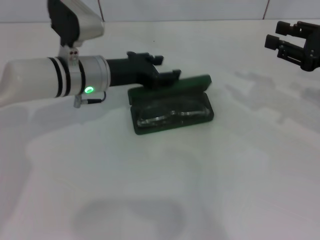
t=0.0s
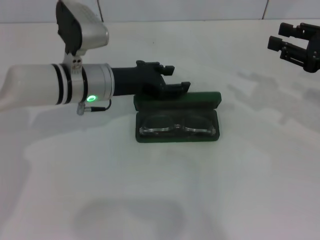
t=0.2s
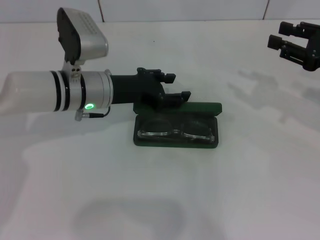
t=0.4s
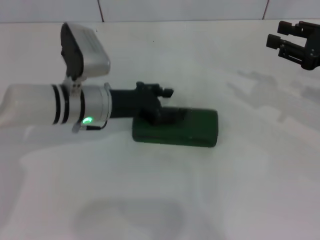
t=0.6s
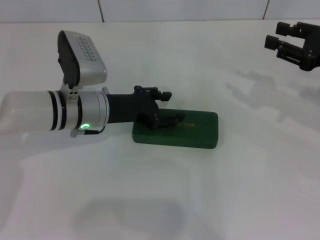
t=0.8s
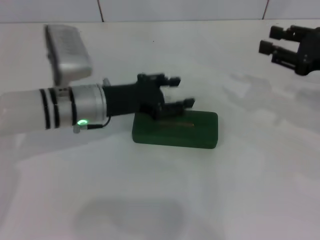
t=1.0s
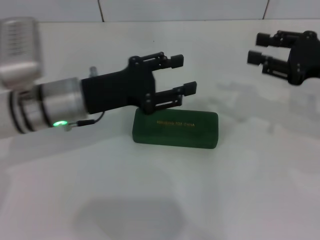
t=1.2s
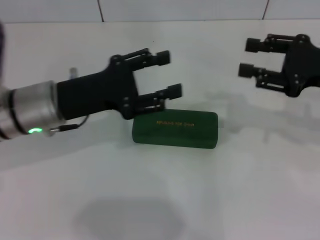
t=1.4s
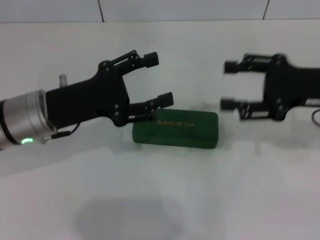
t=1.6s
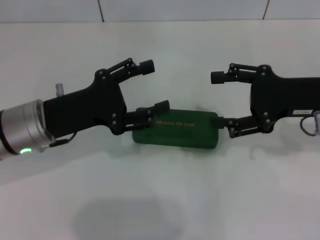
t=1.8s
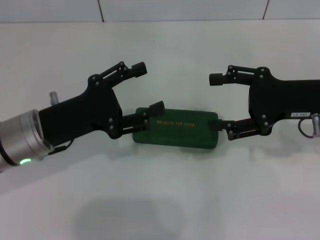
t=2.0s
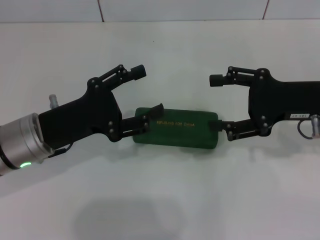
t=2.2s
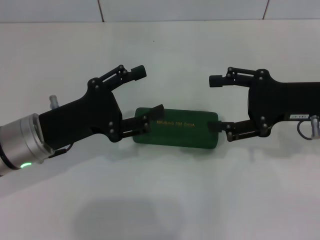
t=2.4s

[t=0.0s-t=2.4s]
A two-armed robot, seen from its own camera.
t=0.0s to t=1.2s: The left gripper heads backward, covering about 5 cm.
t=1.2s to t=2.4s: The left gripper shifts about 5 cm backward, while the right gripper heads to the left, covering approximately 5 cm, and opens.

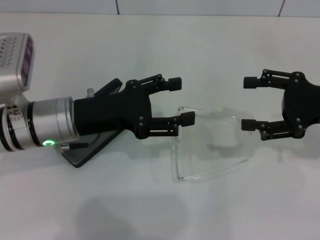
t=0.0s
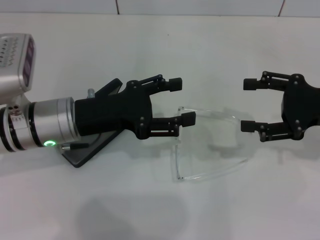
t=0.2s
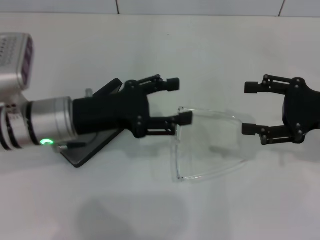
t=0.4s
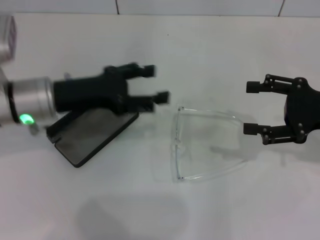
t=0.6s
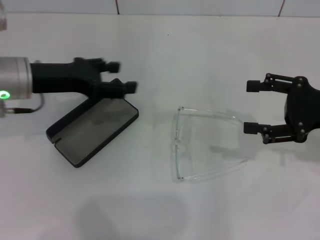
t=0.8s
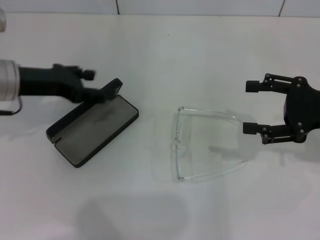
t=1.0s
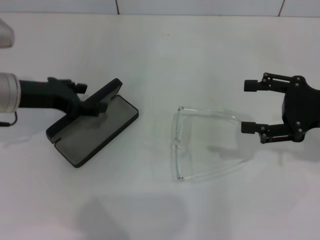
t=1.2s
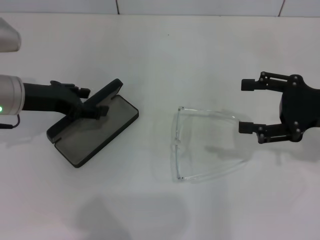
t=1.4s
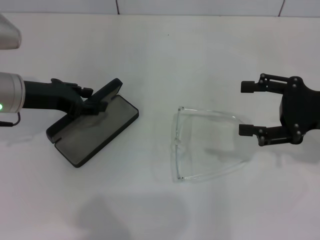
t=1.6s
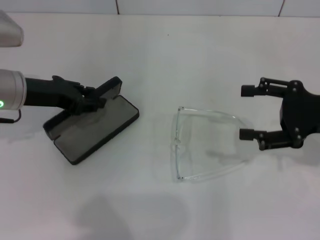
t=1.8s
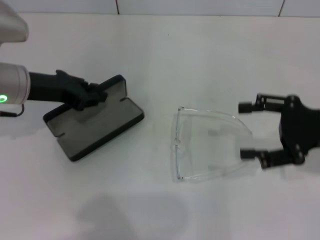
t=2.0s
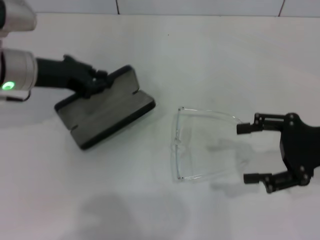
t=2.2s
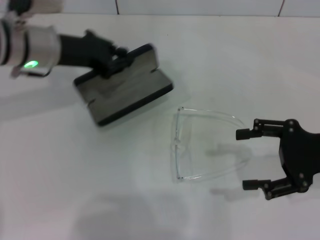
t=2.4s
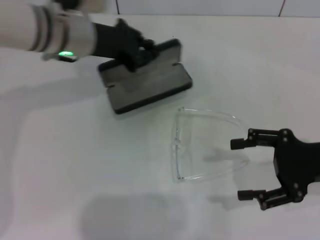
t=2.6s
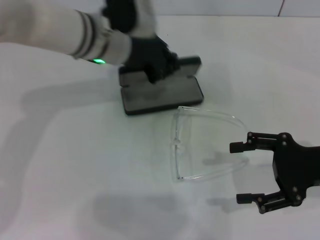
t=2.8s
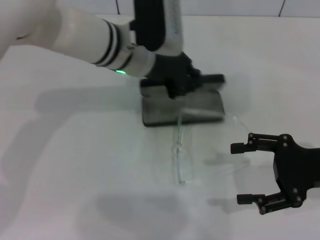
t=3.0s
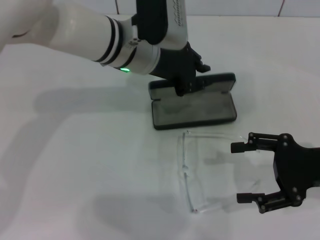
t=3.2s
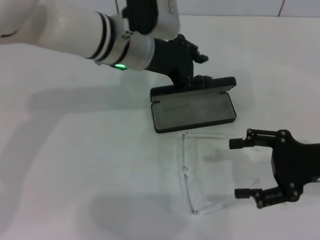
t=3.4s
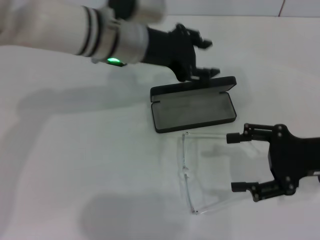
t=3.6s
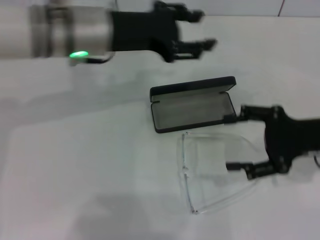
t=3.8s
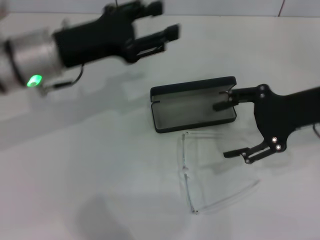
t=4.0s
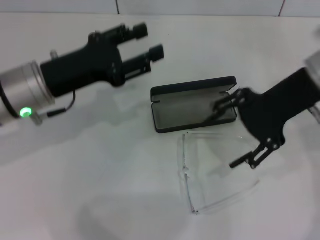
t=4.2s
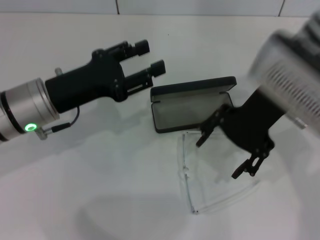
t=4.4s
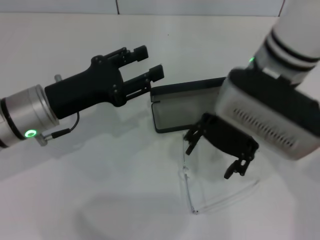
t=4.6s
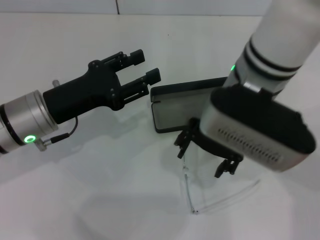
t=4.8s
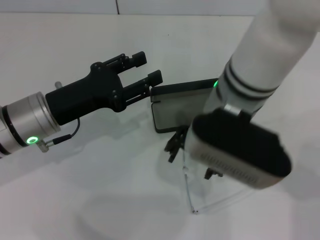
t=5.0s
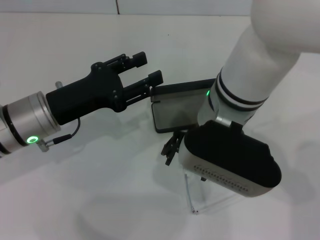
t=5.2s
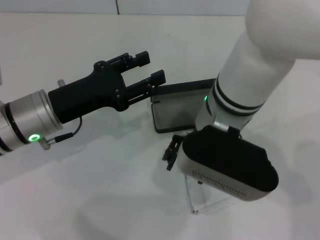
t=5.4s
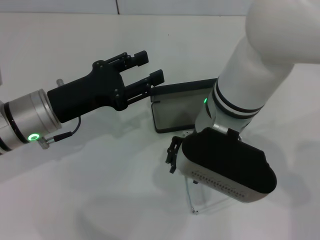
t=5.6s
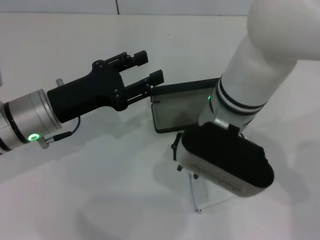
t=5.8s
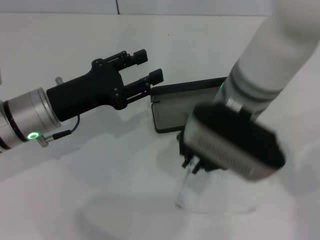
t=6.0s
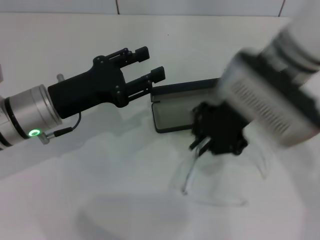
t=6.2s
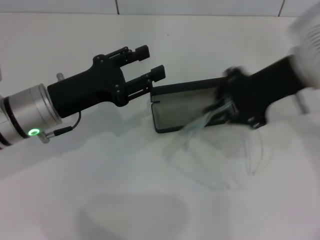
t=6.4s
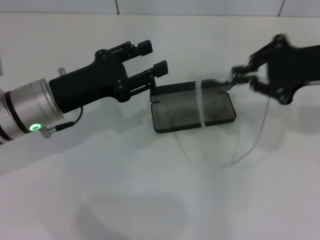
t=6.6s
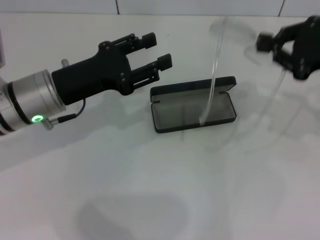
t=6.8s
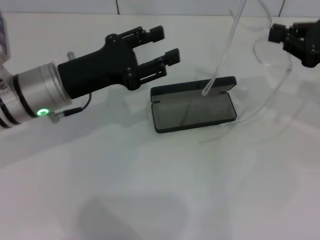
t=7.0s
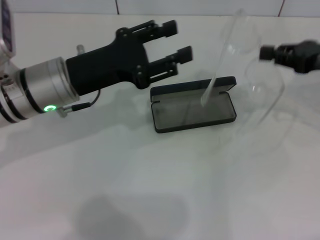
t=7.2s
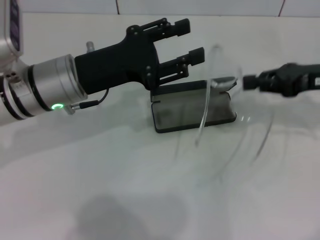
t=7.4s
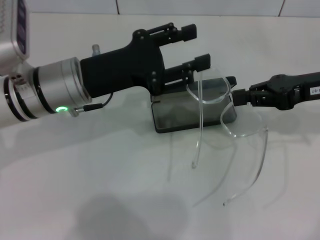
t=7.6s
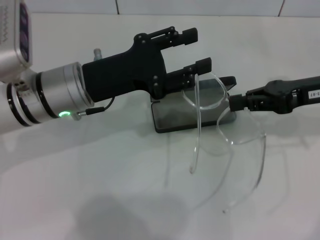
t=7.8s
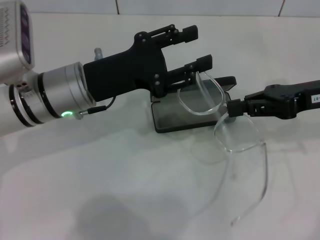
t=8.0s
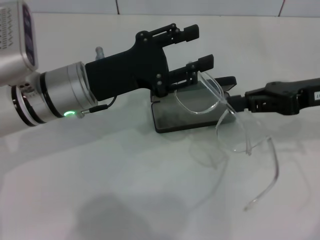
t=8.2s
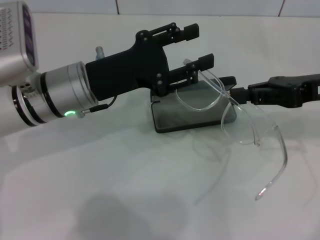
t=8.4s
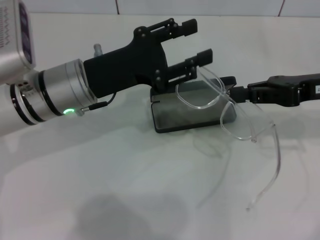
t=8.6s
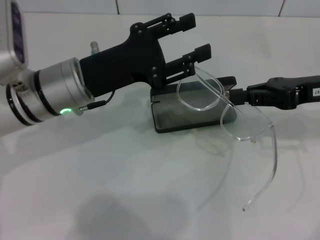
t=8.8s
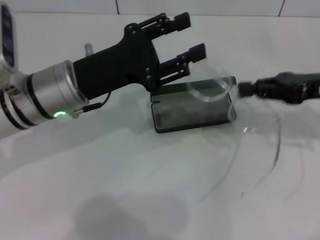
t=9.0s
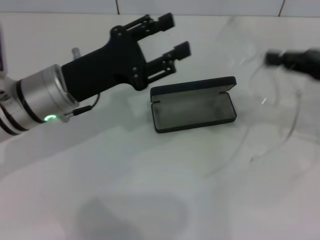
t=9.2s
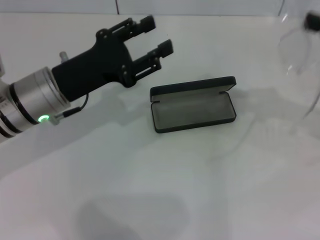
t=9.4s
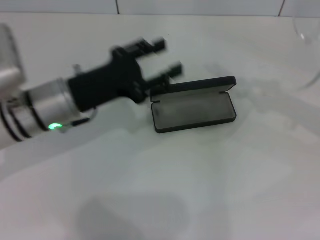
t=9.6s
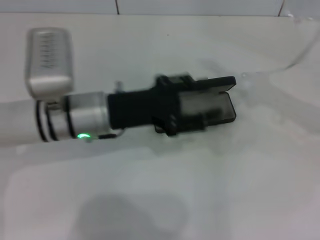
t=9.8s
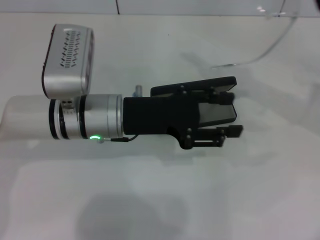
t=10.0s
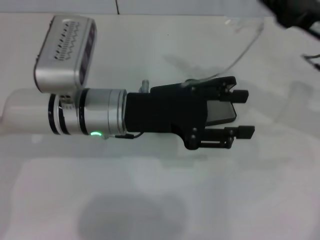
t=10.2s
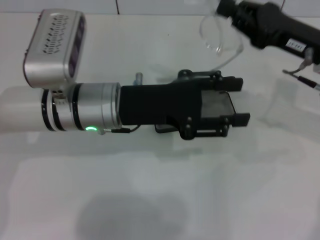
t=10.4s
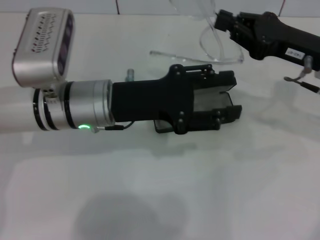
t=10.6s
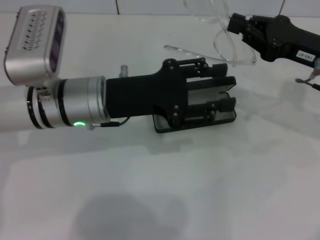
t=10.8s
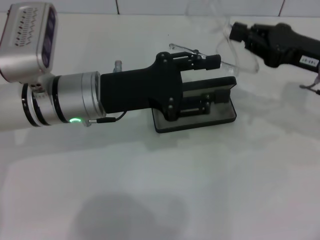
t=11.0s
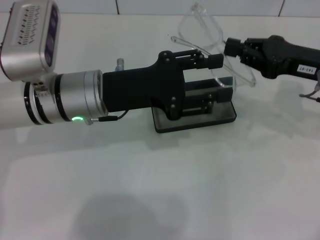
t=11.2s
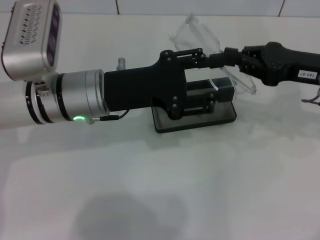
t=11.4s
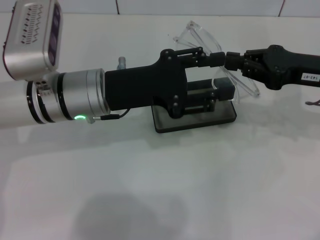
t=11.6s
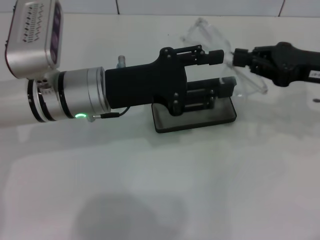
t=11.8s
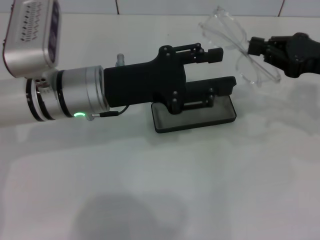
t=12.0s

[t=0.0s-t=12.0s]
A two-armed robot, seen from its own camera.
Step, t=0.0s to t=1.6s: Grab the glasses case with your left hand.
Step, t=1.8s to t=3.2s: Place the glasses case in the center of the table with your left hand.
Step, t=3.4s to t=5.8s: Grab the eyeglass frame with your right hand.
Step, t=6.0s to t=11.4s: Fold the frame with your left hand.
t=0.0s to t=1.6s: The left gripper is displaced to the left by approximately 5 cm.
t=1.6s to t=3.0s: The right gripper shifts by approximately 5 cm; the left gripper shifts some 20 cm to the right, and closes its fingers.
t=3.0s to t=4.4s: The right gripper heads to the left, upward and forward, covering about 20 cm. Meanwhile the left gripper goes roughly 15 cm to the left and backward, and opens up.
t=4.4s to t=6.0s: The right gripper moves to the left, about 5 cm, and closes its fingers.
t=6.0s to t=7.6s: The right gripper heads to the right, covering about 20 cm, and closes; the left gripper shifts by some 5 cm.
t=7.6s to t=9.0s: The grippers make only small movements.
t=10.4s to t=12.0s: The right gripper shifts roughly 5 cm to the right.

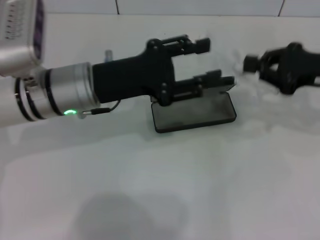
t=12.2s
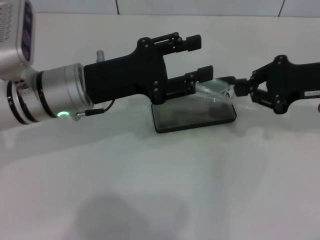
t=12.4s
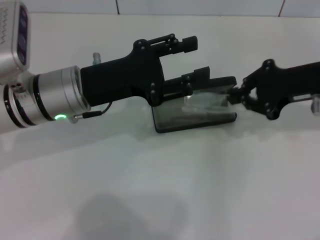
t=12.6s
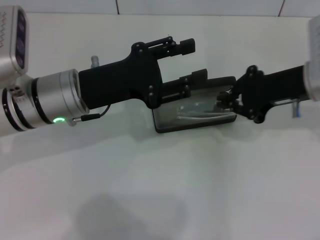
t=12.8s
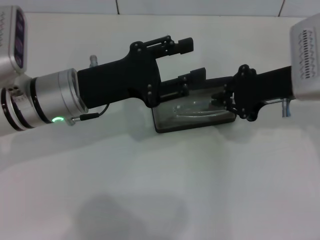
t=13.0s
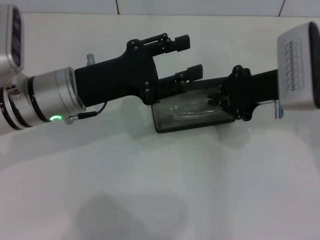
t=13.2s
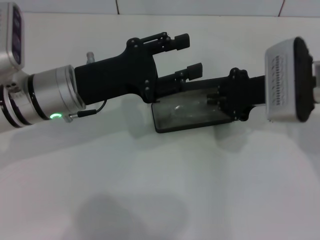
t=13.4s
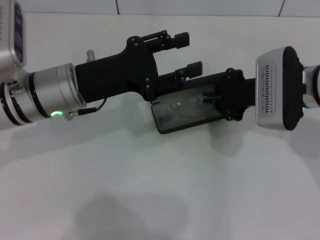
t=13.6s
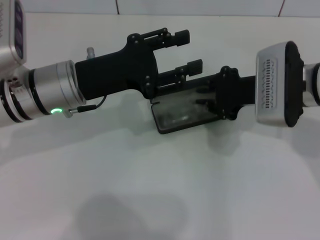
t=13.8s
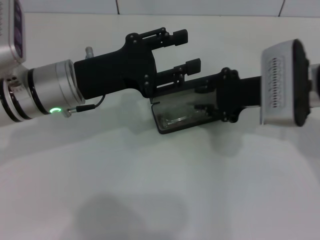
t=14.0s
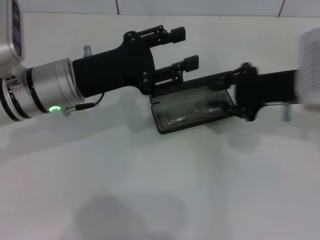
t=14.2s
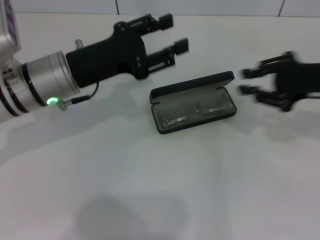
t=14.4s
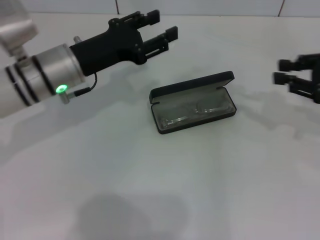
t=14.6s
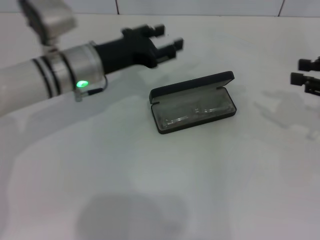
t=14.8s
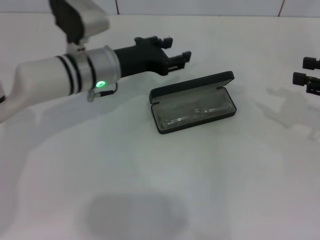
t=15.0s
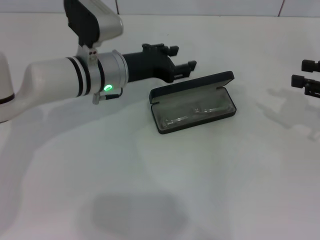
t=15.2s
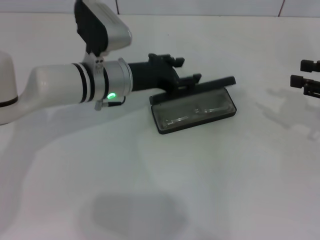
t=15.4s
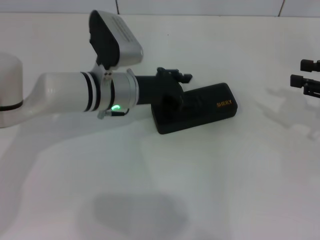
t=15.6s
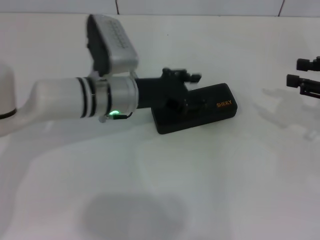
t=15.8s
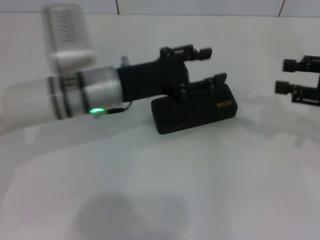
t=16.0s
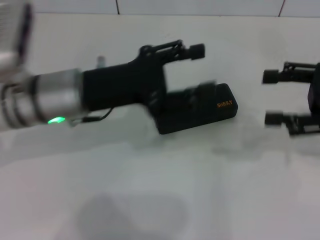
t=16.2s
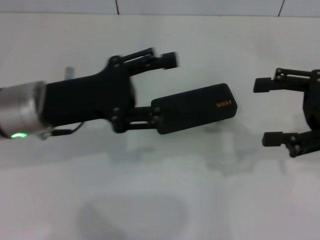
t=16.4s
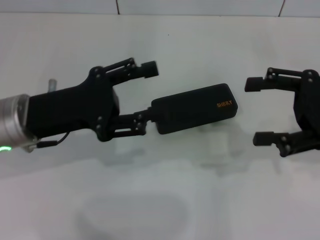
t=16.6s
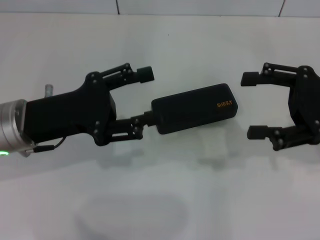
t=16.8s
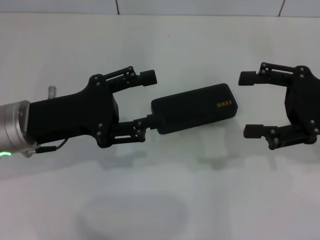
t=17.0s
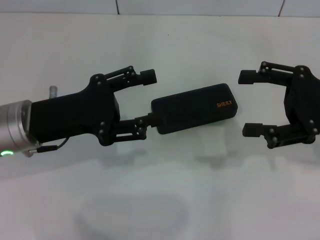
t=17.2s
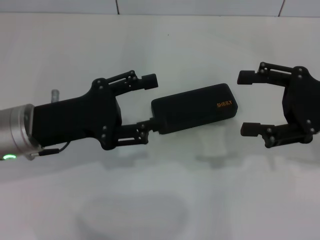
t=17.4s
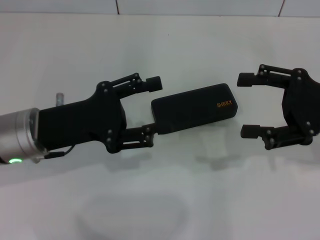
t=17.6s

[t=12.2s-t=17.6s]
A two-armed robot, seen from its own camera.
Step, t=12.2s to t=13.8s: Put the glasses into the case with your right hand.
Step, t=14.0s to t=15.4s: Close the glasses case with your left hand.
t=12.2s to t=13.6s: The right gripper heads to the left, covering some 10 cm.
t=13.6s to t=15.0s: The right gripper goes some 15 cm to the right, and opens up. The left gripper travels forward by about 5 cm.
t=15.0s to t=16.2s: The right gripper ends up some 5 cm from where it was, while the left gripper travels backward by roughly 10 cm.
t=16.2s to t=17.6s: The left gripper ends up approximately 5 cm from where it was.
